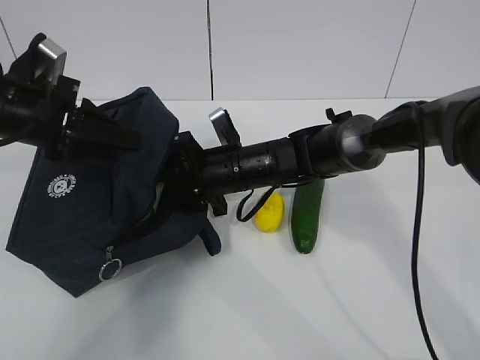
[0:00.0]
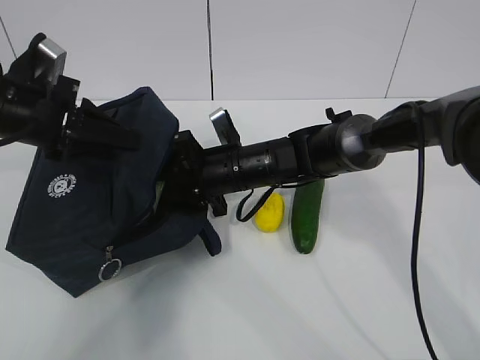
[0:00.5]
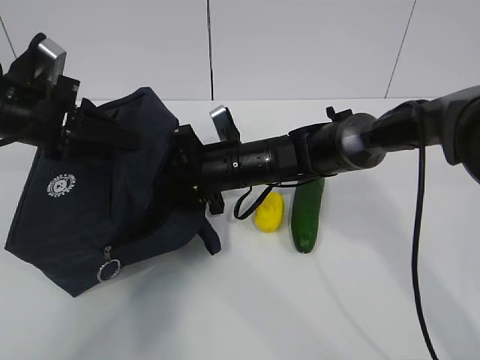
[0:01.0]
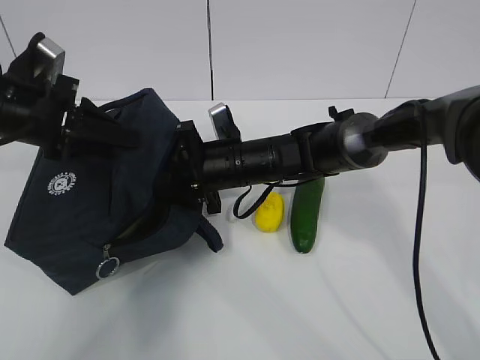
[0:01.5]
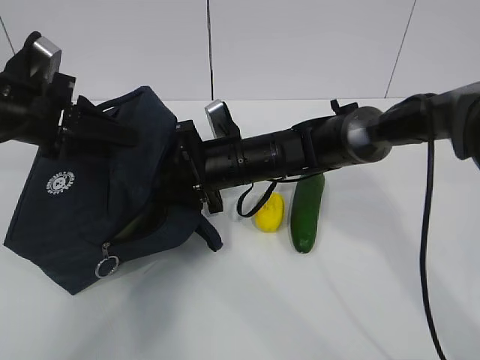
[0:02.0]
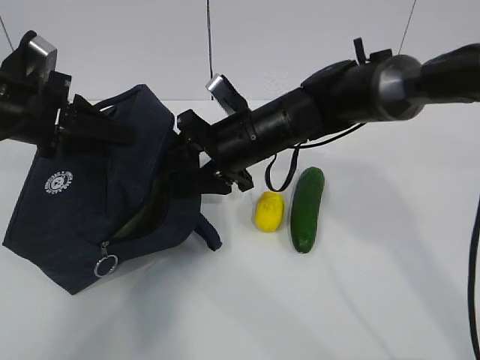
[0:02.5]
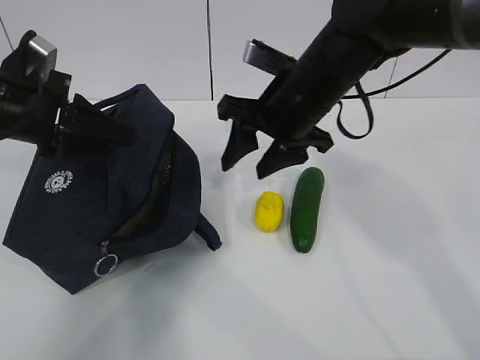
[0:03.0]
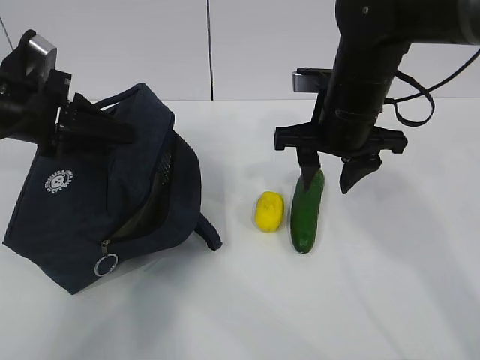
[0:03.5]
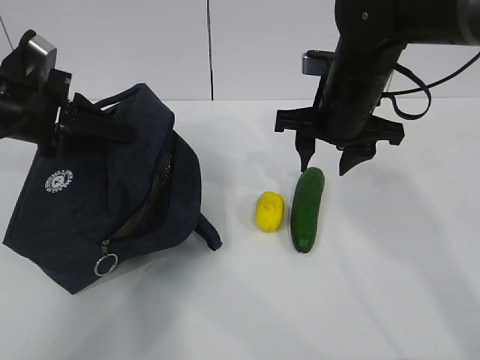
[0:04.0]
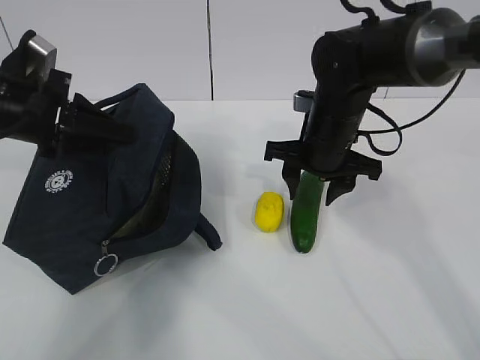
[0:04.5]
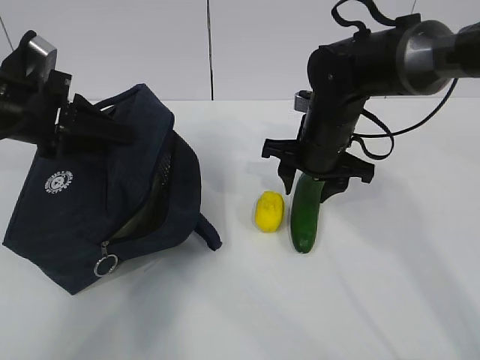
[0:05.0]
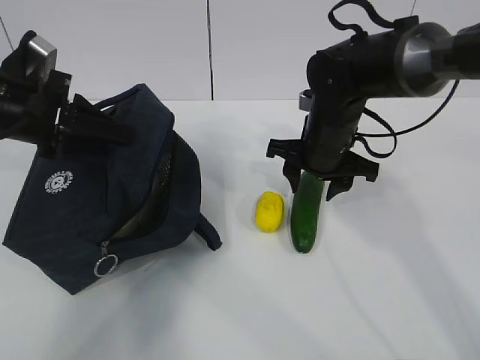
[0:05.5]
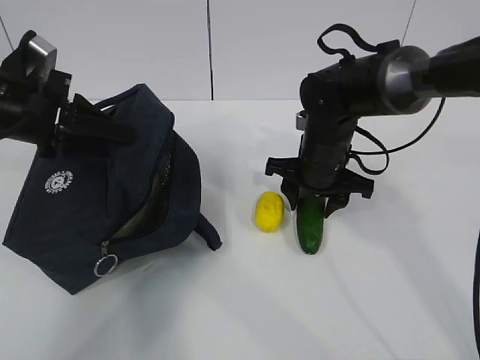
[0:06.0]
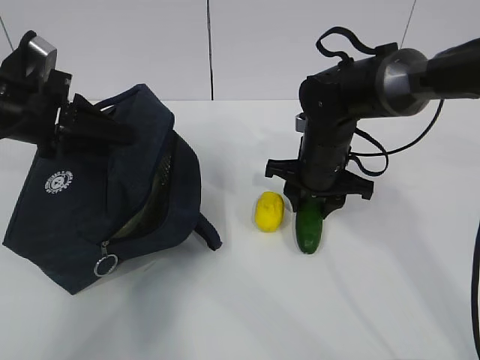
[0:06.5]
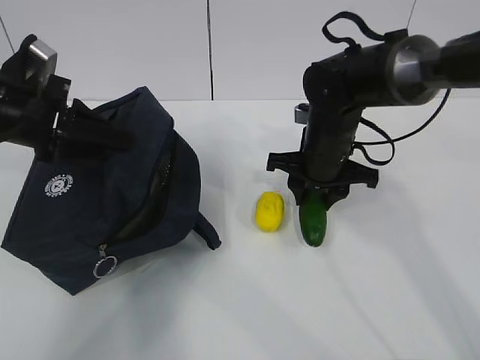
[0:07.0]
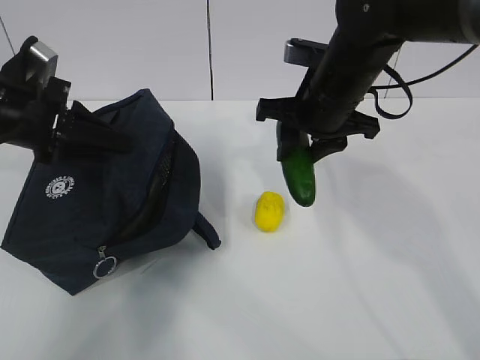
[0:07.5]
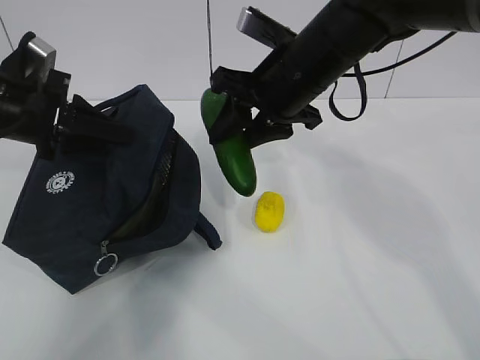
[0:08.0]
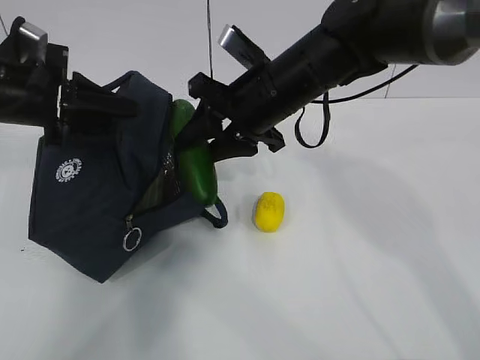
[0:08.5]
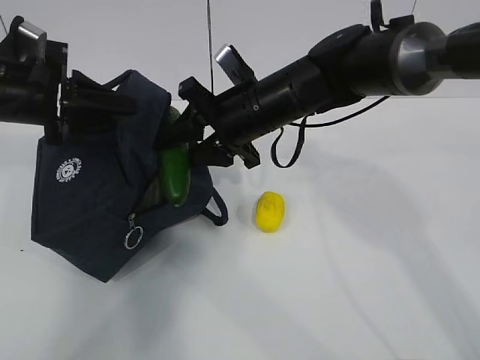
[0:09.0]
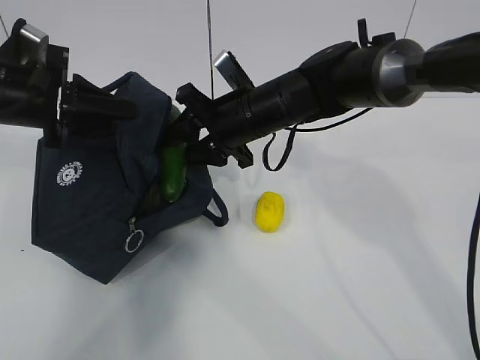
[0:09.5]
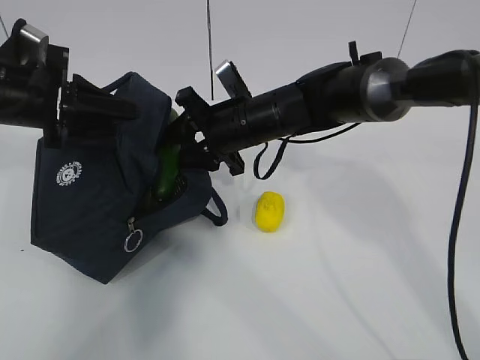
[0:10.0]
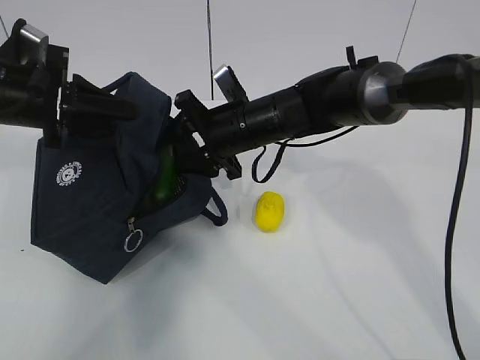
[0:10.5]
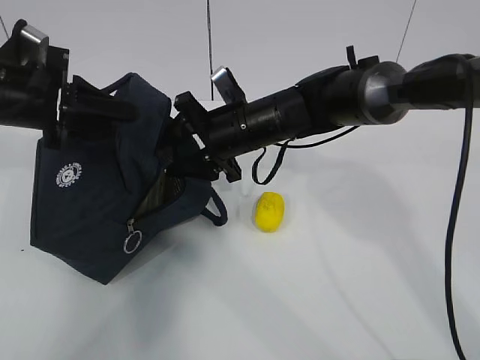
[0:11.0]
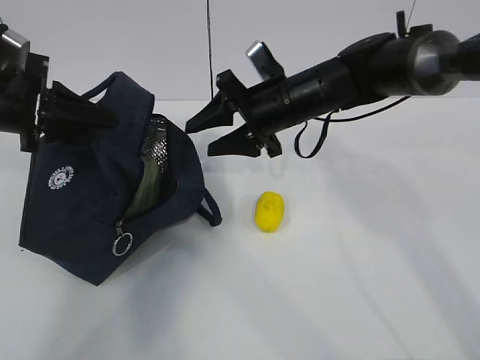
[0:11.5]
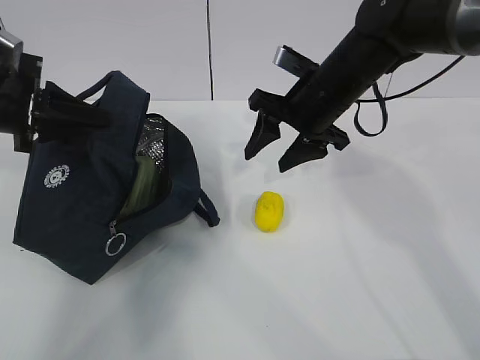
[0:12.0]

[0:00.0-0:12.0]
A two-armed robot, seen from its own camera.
Step, 0:02.0 to 0:05.0: Place it into the bag with your right hand.
Step, 0:05.5 to 0:07.5: Grab the lemon with your right hand.
Step, 0:08.0 to 0:09.0: Secure the lunch bag with your left hand.
Step, 0:09.5 to 0:11.0: Grab the lunch bag with your right hand.
0:00.0 to 0:02.0: The grippers make only small movements.
0:02.0 to 0:04.0: The right gripper travels to the right and upward by about 15 cm.
0:04.0 to 0:06.0: The right gripper moves downward, about 10 cm.
0:06.0 to 0:08.0: The right gripper moves upward, roughly 15 cm.
0:08.0 to 0:10.0: The right gripper shifts approximately 10 cm downward.
0:10.0 to 0:12.0: The right gripper travels to the right by some 10 cm.

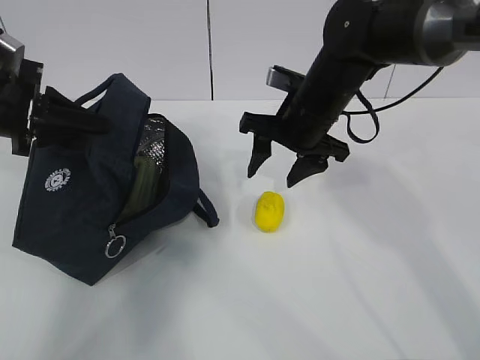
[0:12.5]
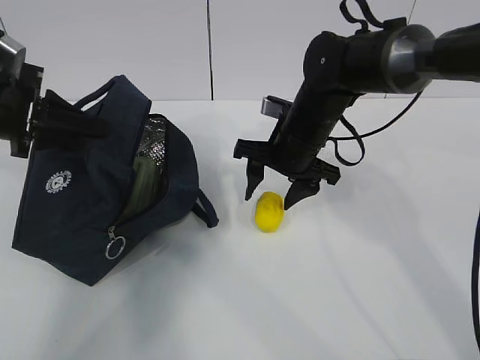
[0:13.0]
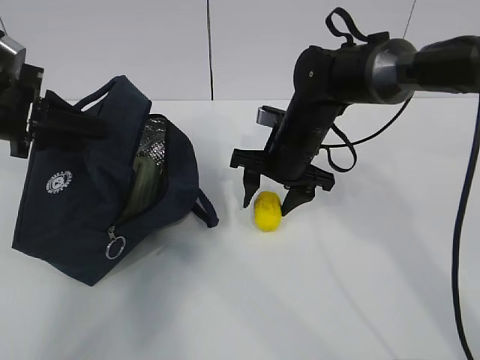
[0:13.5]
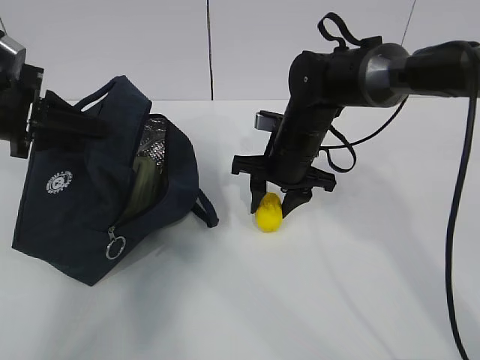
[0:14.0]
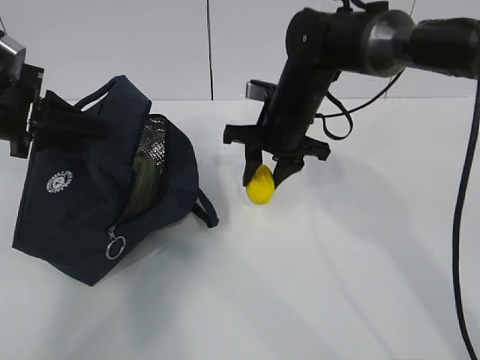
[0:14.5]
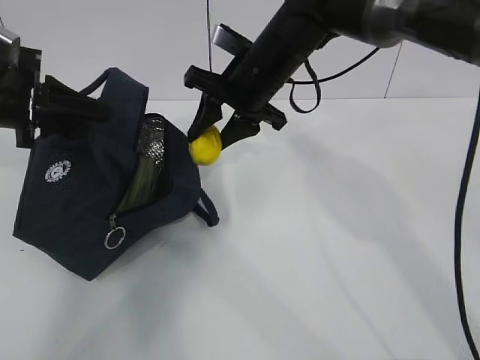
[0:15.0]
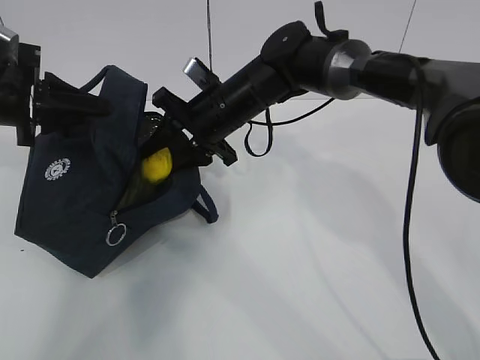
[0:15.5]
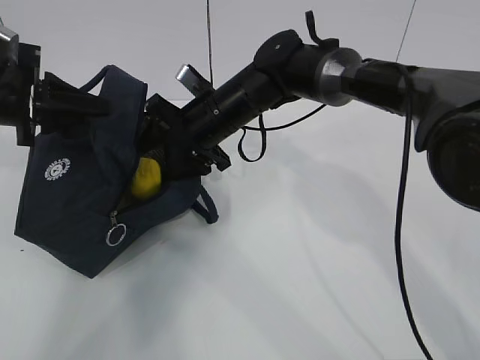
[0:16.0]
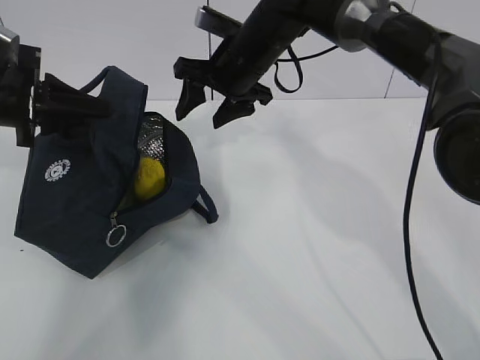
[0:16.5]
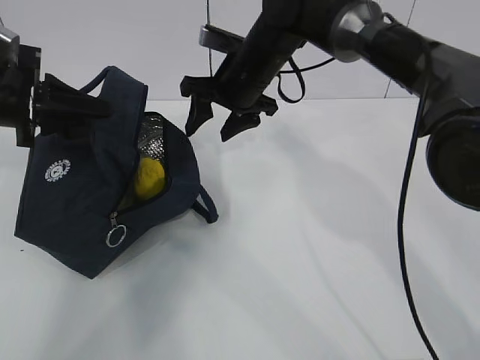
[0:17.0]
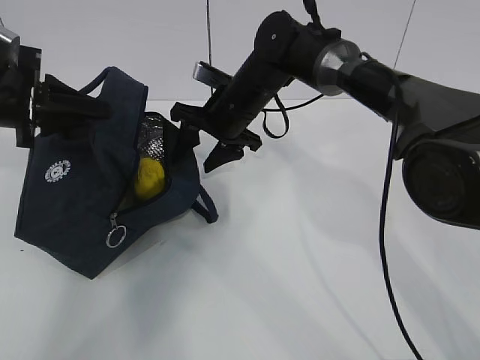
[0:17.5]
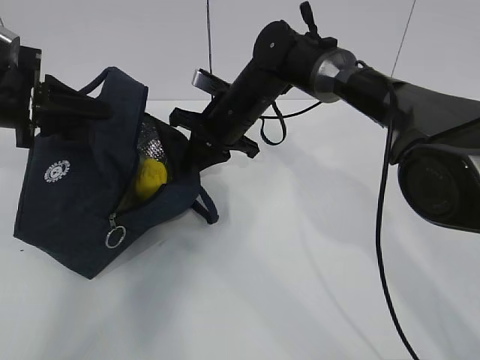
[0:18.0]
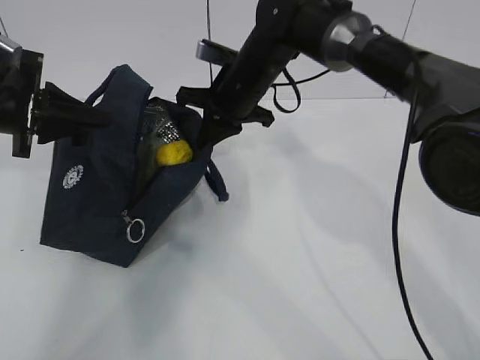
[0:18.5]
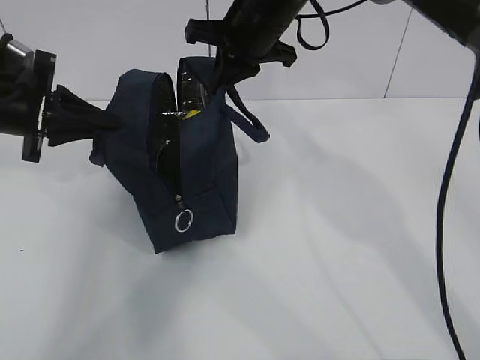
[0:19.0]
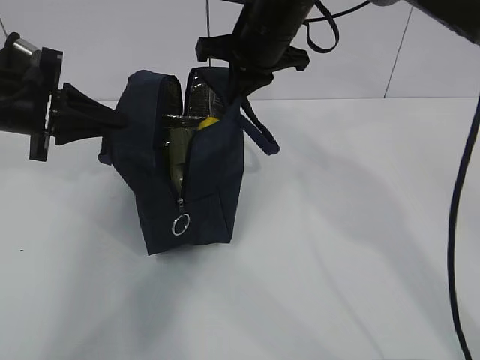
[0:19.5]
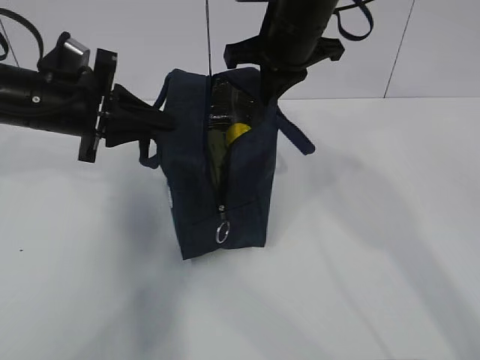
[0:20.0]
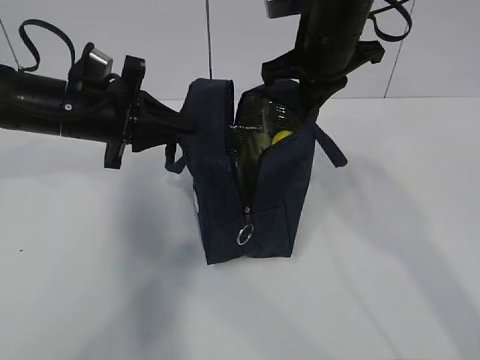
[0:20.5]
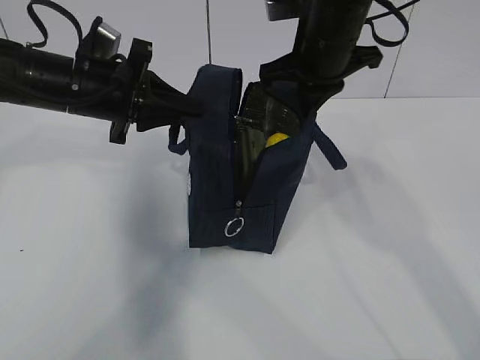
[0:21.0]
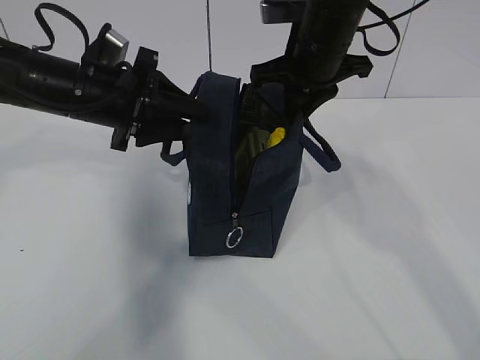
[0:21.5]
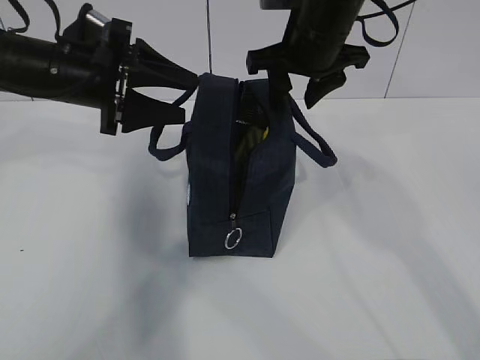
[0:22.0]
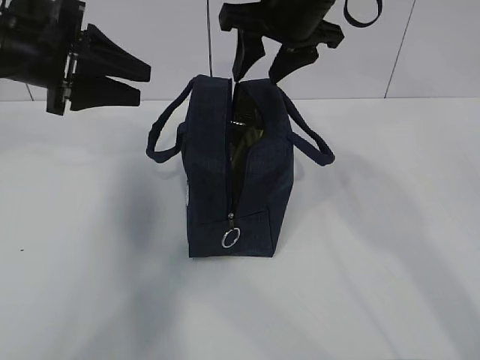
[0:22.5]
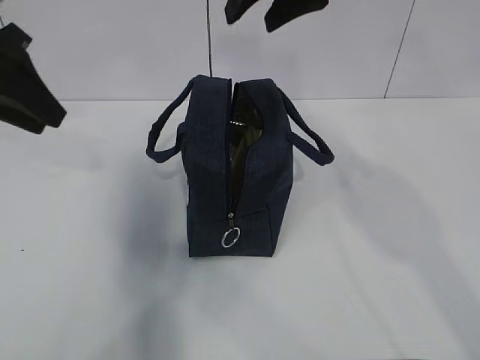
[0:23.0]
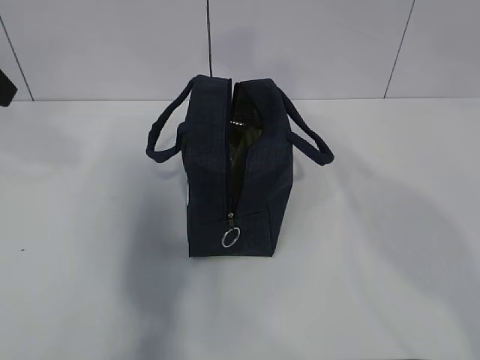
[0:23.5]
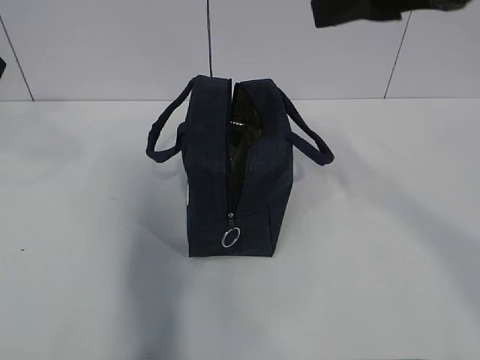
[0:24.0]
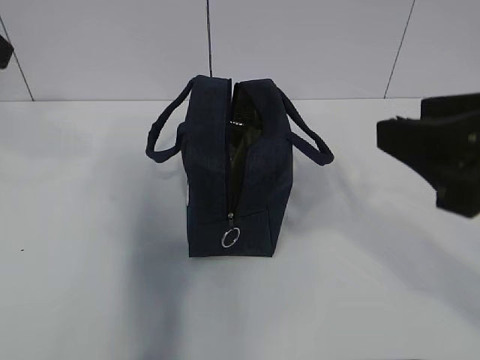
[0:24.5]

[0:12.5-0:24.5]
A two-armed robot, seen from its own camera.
Step, 0:12.5 to 0:14.0: Stand the lunch bag upright with your right hand.
0:14.5 to 0:16.5: The right gripper shifts approximately 5 cm upward.
0:16.5 to 0:18.5: The right gripper closes up.
0:18.5 to 0:20.5: The left gripper is displaced to the right by approximately 10 cm. The right gripper goes roughly 15 cm upward, to the right and backward.
0:20.5 to 0:22.5: The right gripper opens up. Meanwhile the left gripper moves upward, about 5 cm, and opens up.
0:22.5 to 0:24.5: The right gripper is displaced backward and to the right by roughly 30 cm. The left gripper shifts about 15 cm upward and backward.

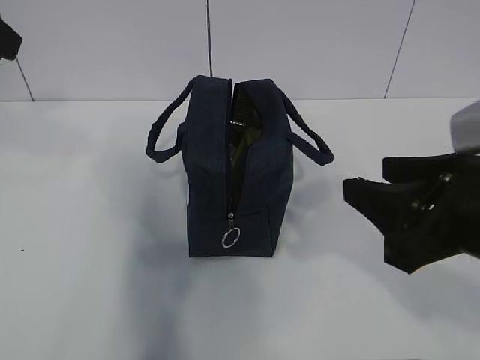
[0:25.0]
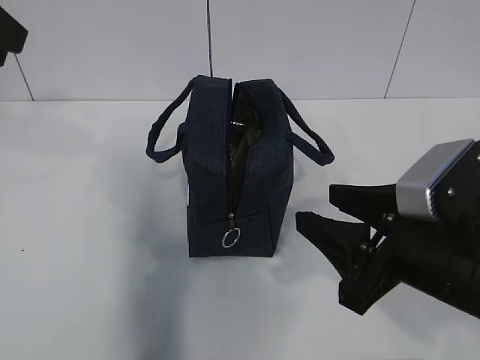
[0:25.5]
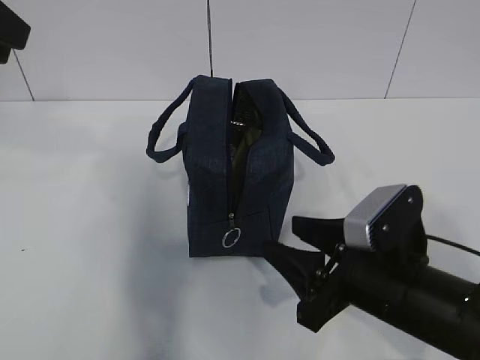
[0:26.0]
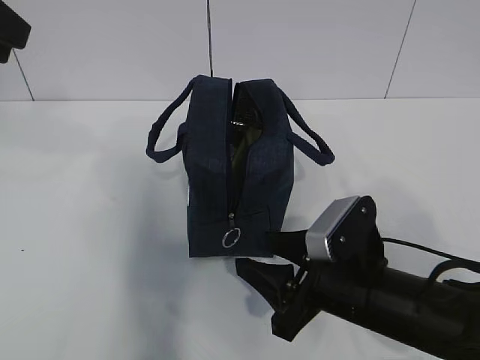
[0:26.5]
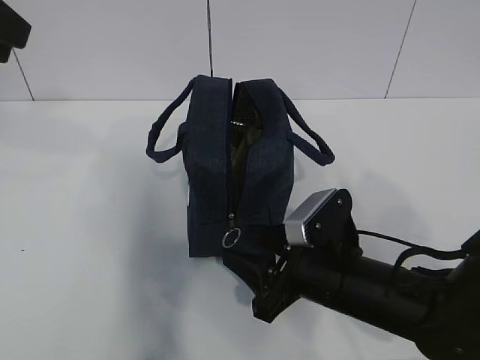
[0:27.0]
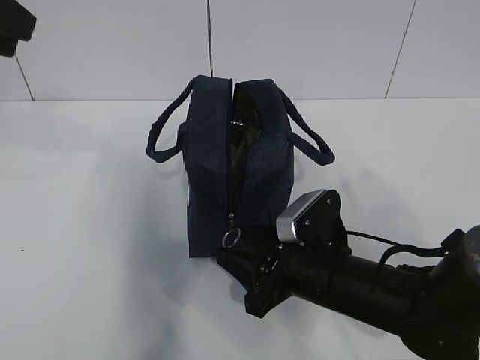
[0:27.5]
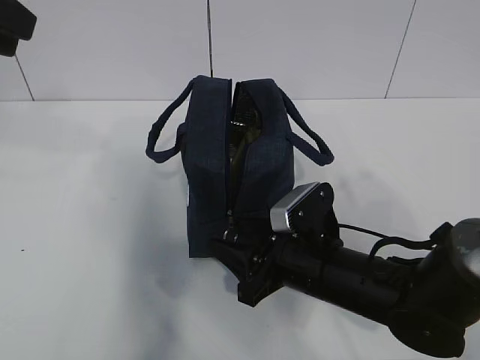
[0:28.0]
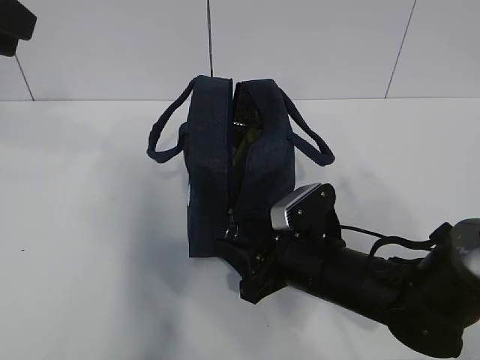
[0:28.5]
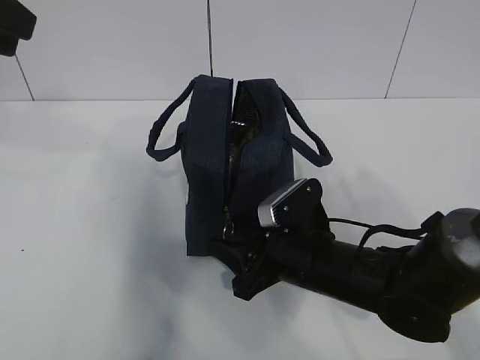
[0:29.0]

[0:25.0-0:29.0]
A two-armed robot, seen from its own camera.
0:25.0 to 0:27.0: The right gripper moves downward, to the left and forward, approximately 20 cm.
0:27.0 to 0:29.0: There are only small adjustments of the grippers.
